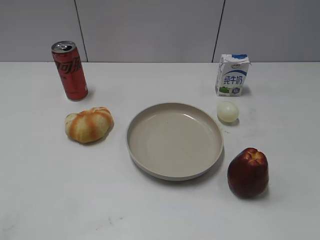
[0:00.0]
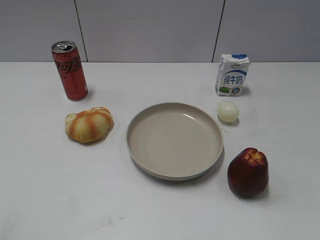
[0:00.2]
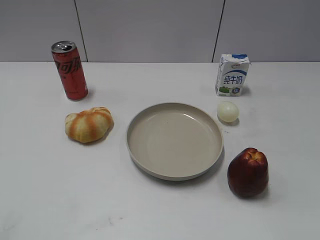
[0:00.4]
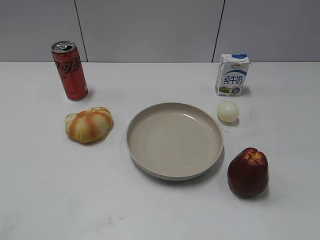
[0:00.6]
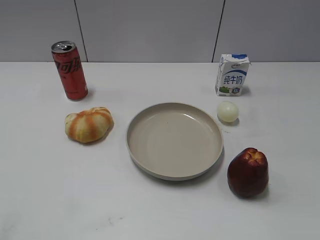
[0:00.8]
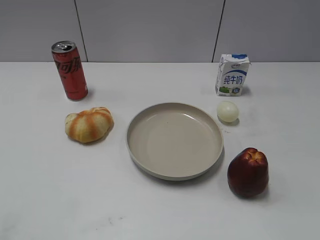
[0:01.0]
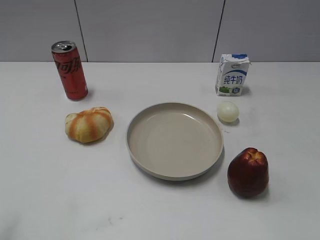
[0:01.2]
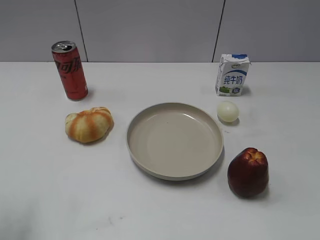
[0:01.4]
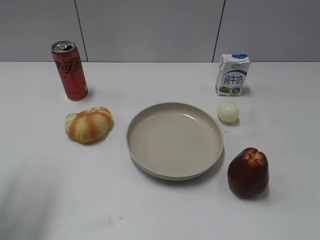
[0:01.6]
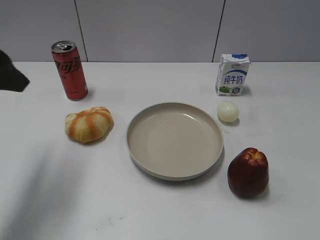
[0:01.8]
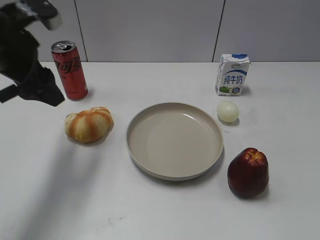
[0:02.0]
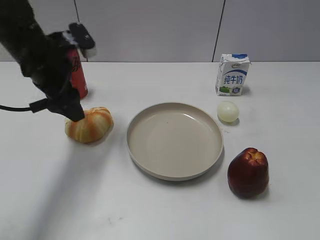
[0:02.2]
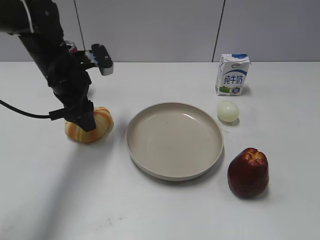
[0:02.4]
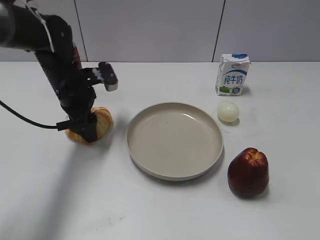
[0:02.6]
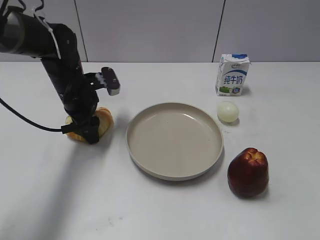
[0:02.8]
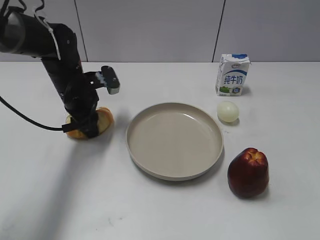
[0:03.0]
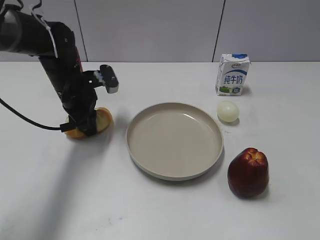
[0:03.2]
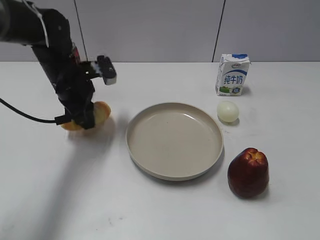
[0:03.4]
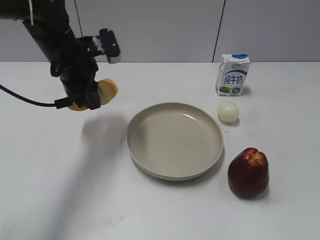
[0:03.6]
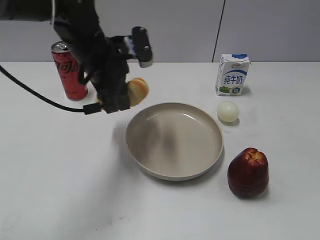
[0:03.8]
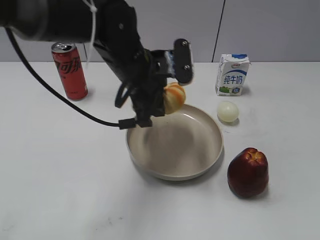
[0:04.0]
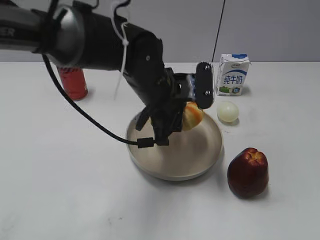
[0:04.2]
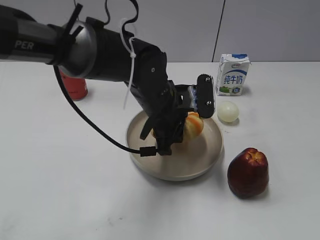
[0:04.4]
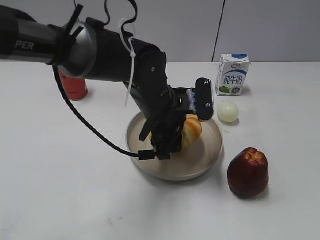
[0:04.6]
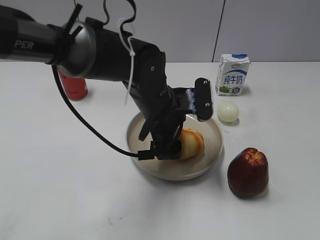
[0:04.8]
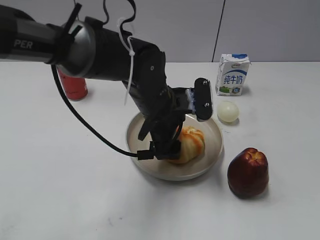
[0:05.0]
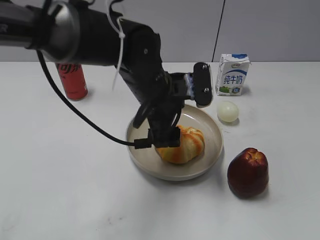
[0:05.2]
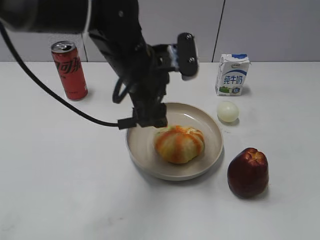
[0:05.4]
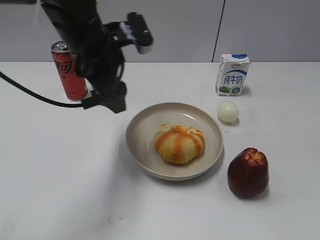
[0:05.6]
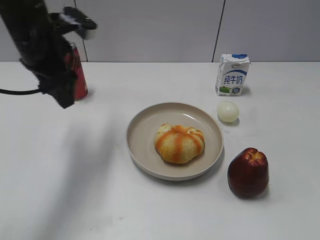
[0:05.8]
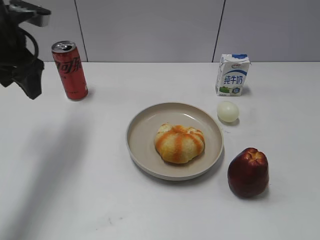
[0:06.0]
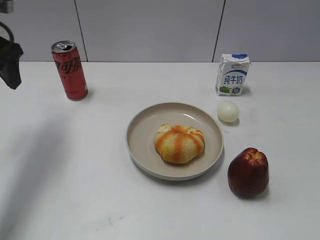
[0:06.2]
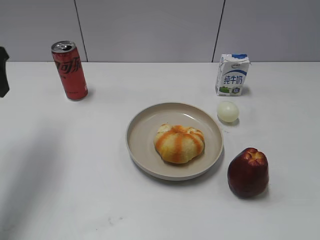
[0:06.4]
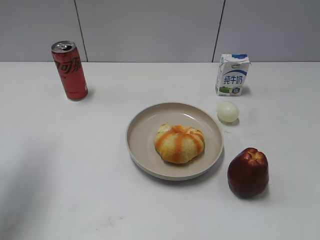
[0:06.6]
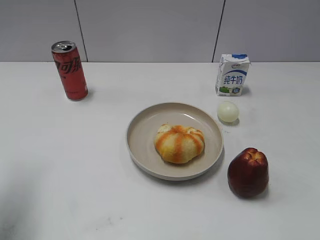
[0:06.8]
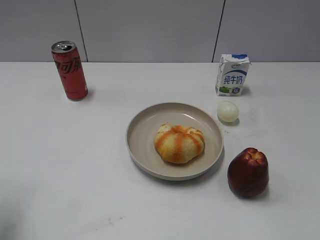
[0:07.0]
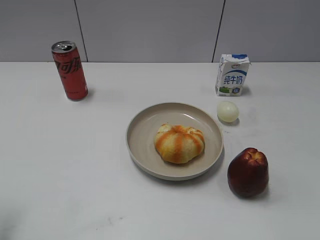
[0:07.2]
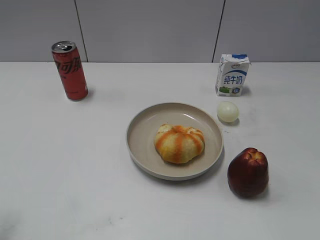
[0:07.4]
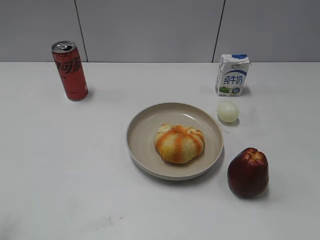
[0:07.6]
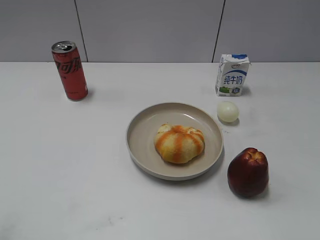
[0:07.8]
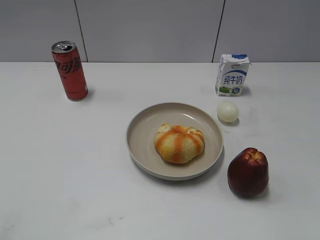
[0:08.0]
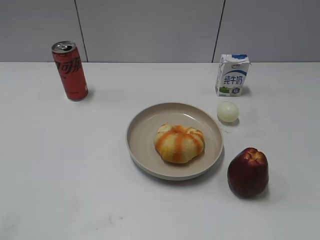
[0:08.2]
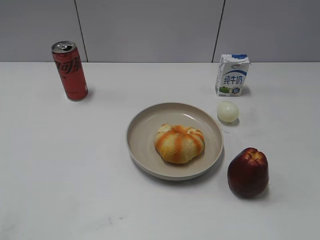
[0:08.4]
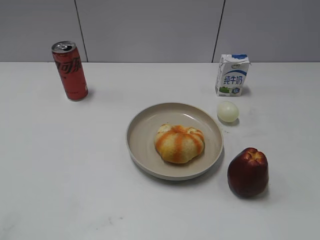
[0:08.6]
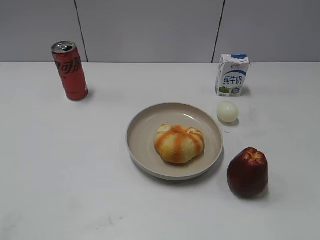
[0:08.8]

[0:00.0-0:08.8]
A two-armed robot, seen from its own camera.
Step, 0:00.8 to 0:03.0: Grasp the round bread with left gripper.
Step, 0:03.2 to 0:05.4: Place the round bread on the plate with left gripper.
0:01.4 to 0:03.0: The left gripper moves forward, downward and to the right, roughly 35 cm, and closes its fingers.
0:03.0 to 0:04.4: The left gripper goes about 20 cm to the right and backward.
0:04.4 to 0:05.8: The left gripper is displaced to the left and upward by some 20 cm, and opens.
0:05.8 to 0:07.4: The left gripper goes roughly 25 cm backward and to the left.
